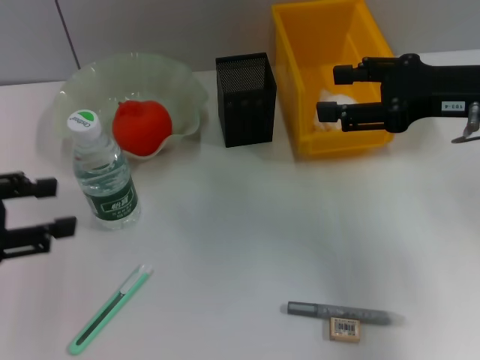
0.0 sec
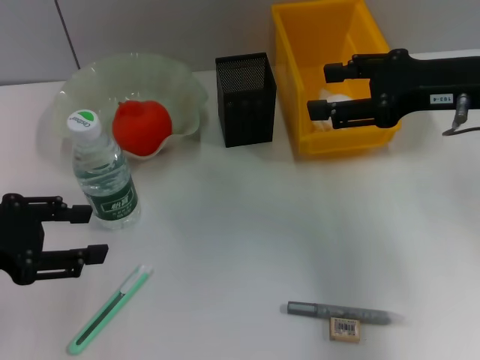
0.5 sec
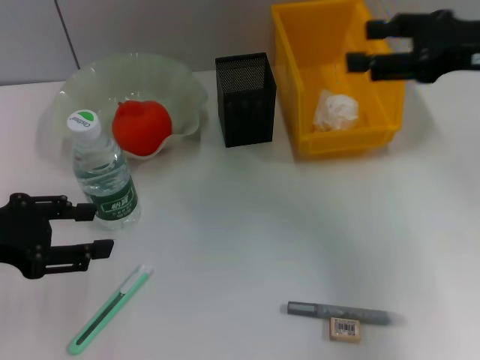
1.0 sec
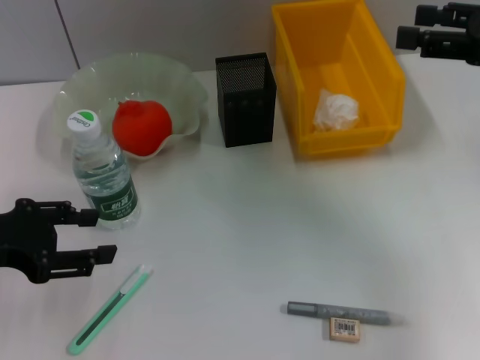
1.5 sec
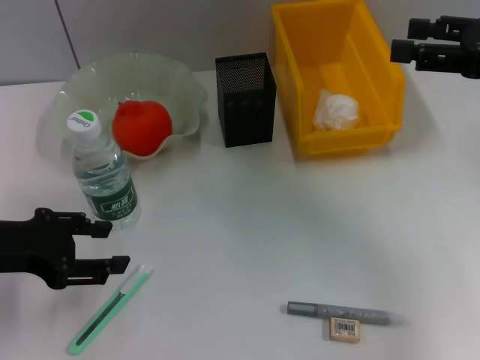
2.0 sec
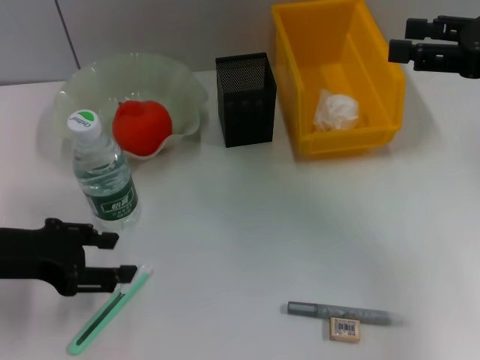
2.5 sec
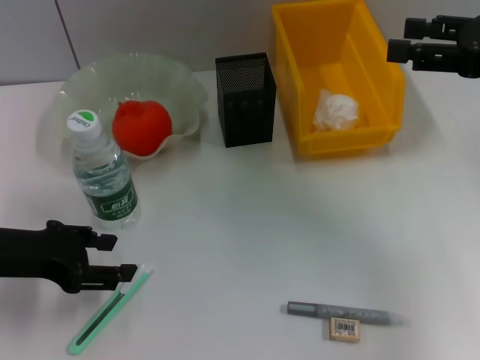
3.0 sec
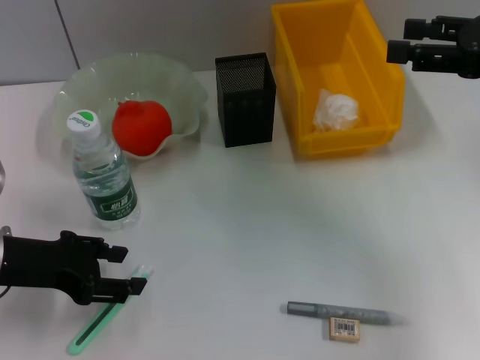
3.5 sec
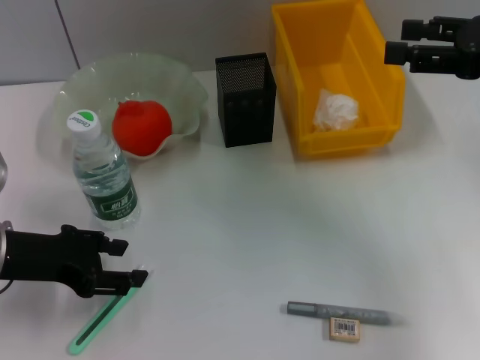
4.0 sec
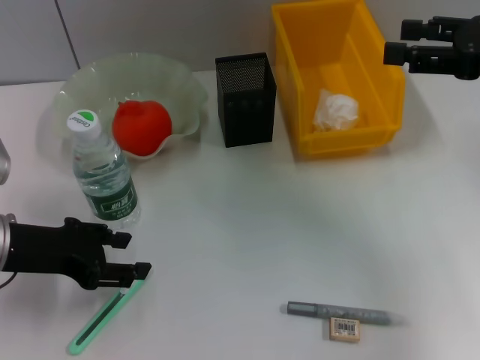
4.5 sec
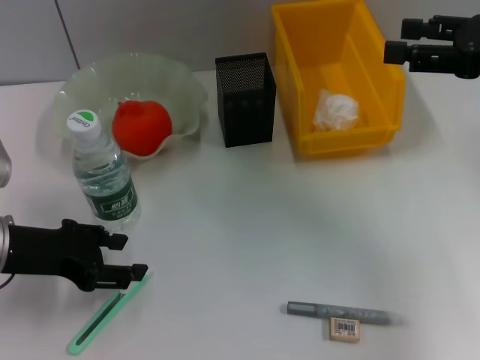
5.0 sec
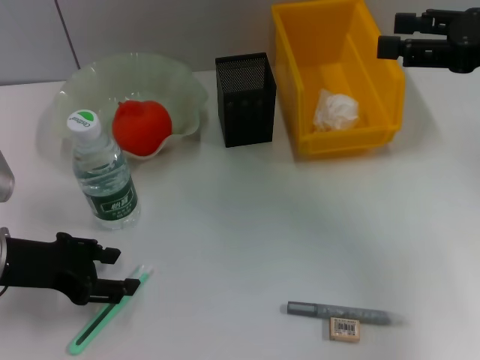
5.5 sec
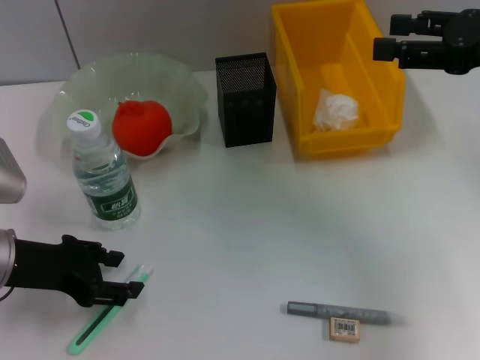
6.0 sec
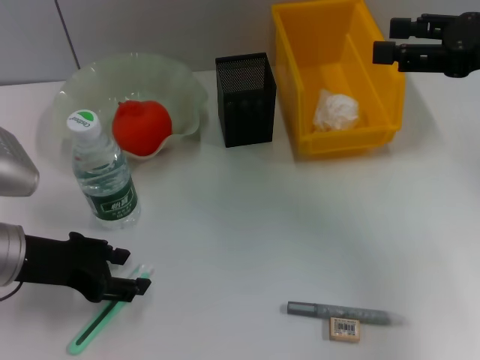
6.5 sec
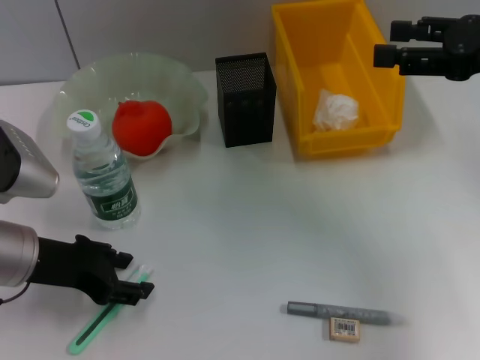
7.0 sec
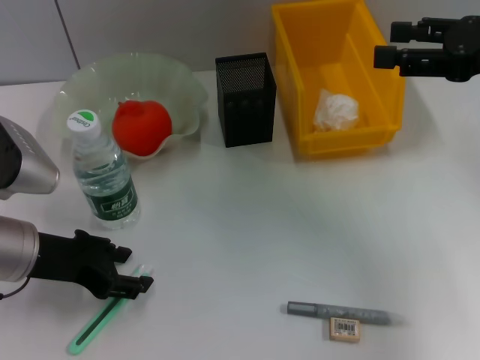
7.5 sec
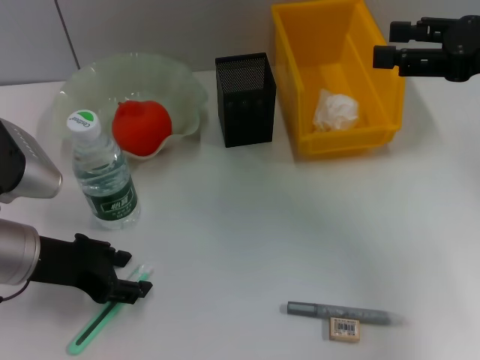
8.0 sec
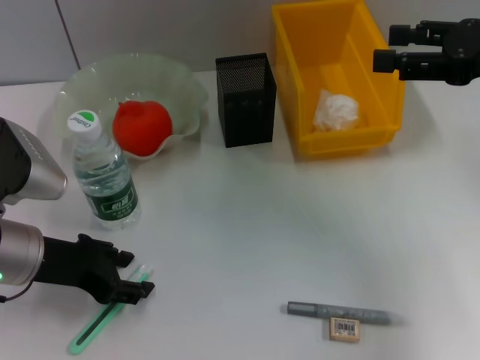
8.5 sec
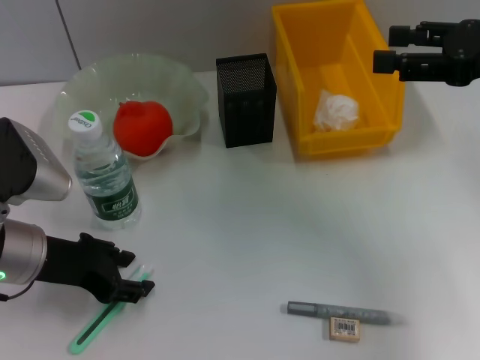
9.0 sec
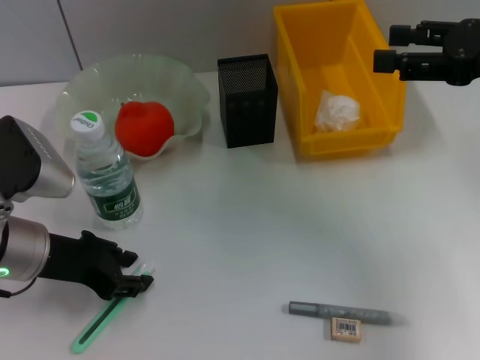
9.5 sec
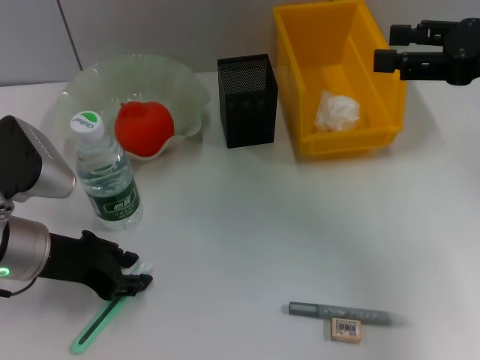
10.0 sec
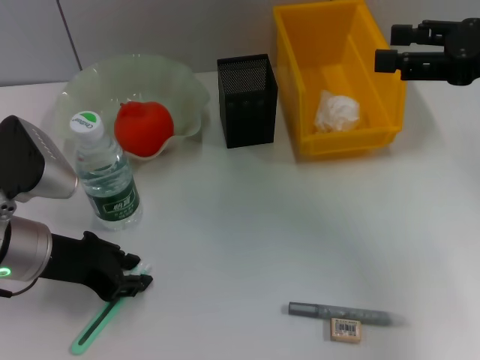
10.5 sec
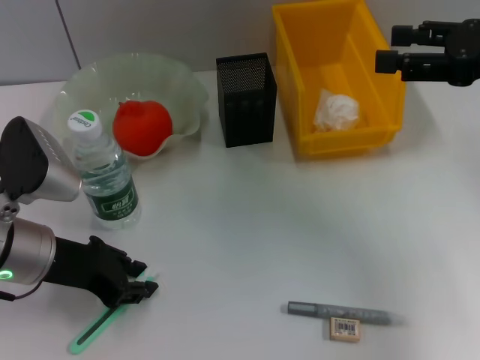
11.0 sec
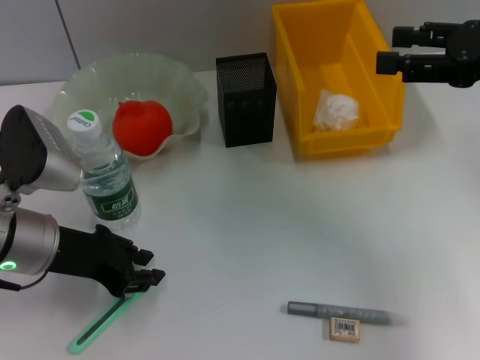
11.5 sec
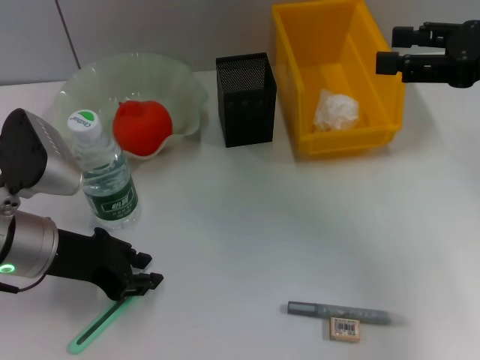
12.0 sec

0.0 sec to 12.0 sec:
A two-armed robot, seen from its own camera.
0.0 sec to 2.0 sec: The right gripper moves to the right, some 5 cm. Meanwhile the left gripper moves some 5 cm.
2.0 sec to 4.0 sec: The grippers make only small movements.
4.0 sec to 6.0 sec: The two grippers keep their place.
6.0 sec to 8.0 sec: The grippers move only a little.
8.0 sec to 10.0 sec: Both grippers stay put.
10.0 sec to 12.0 sec: The grippers stay close to where they were, moving slightly.

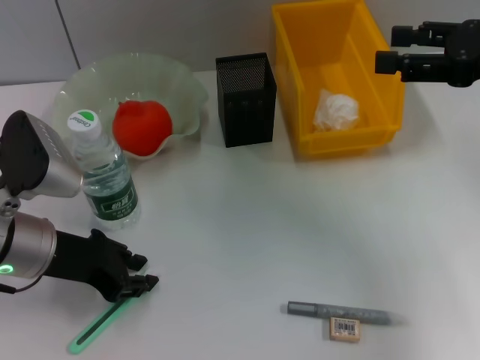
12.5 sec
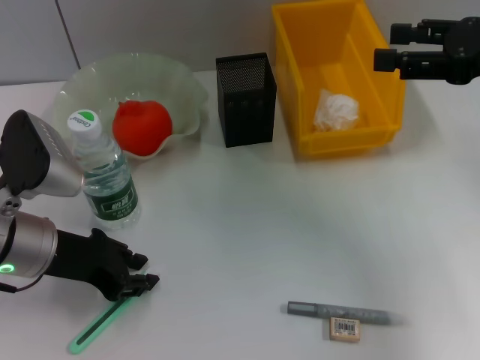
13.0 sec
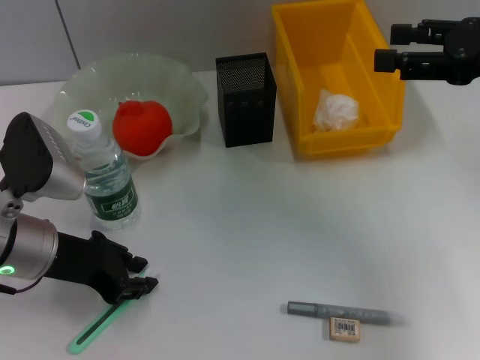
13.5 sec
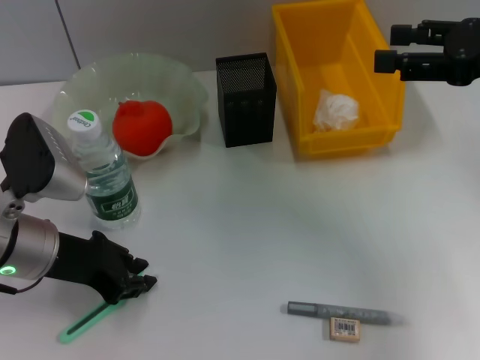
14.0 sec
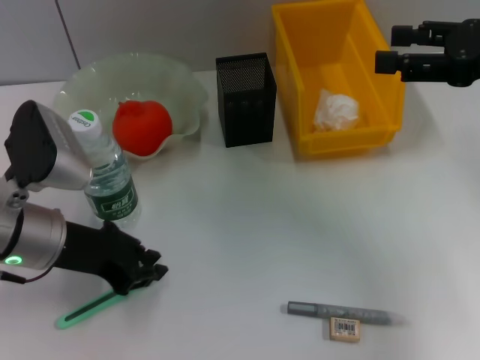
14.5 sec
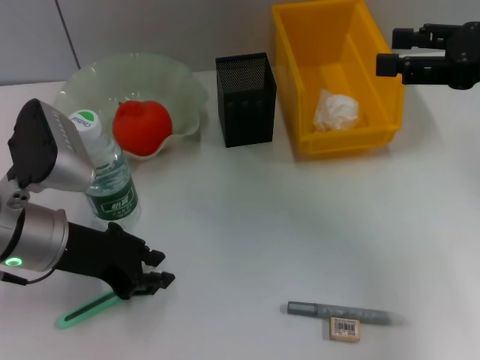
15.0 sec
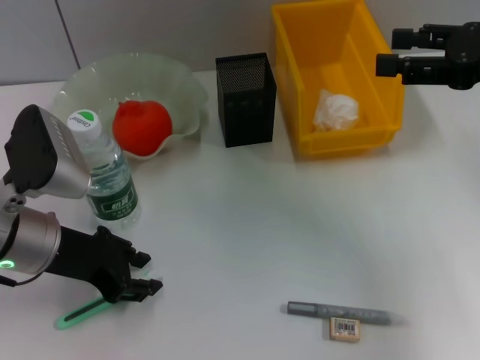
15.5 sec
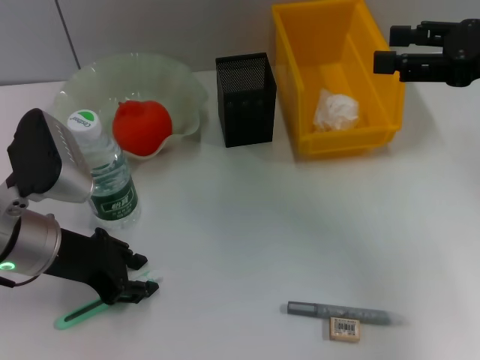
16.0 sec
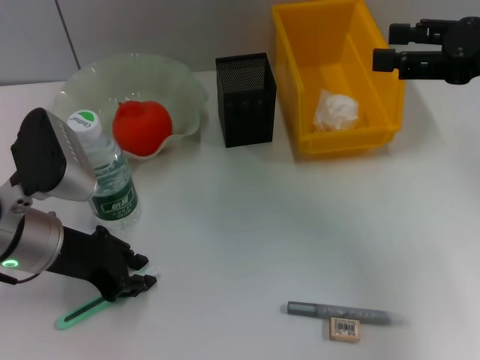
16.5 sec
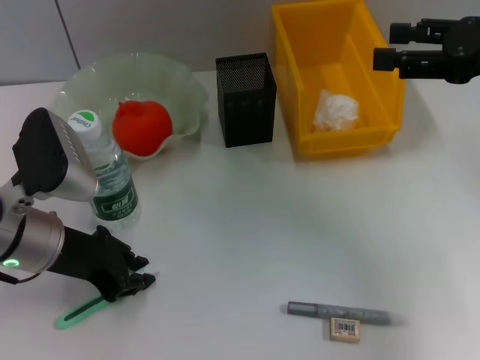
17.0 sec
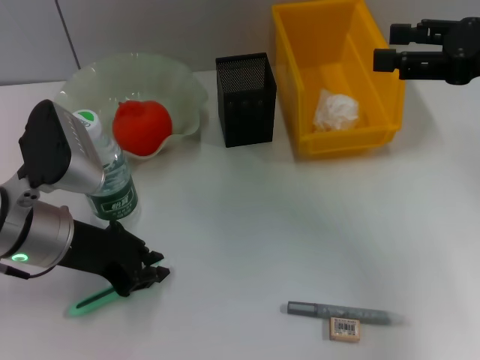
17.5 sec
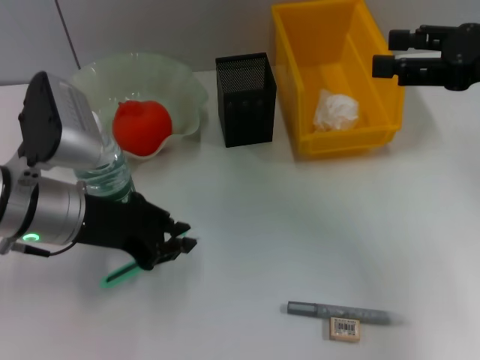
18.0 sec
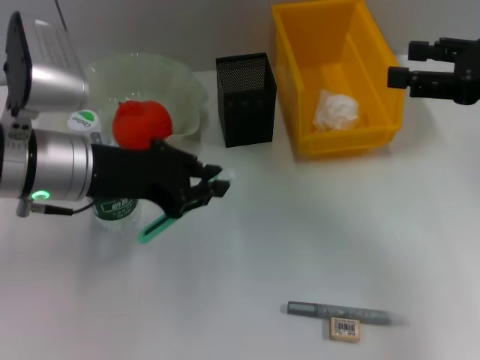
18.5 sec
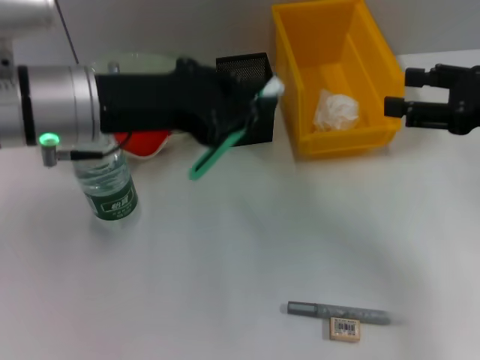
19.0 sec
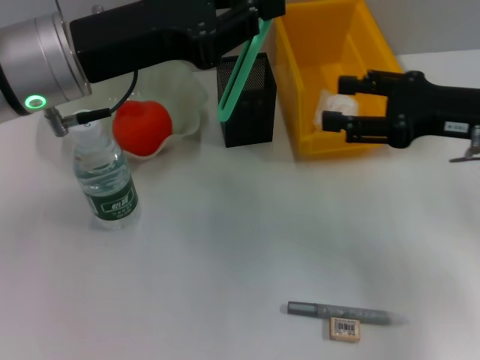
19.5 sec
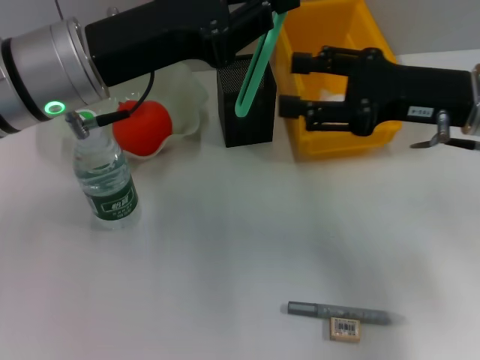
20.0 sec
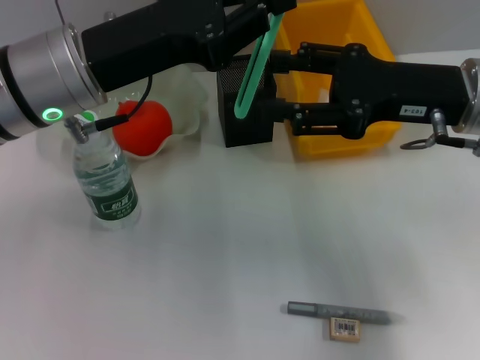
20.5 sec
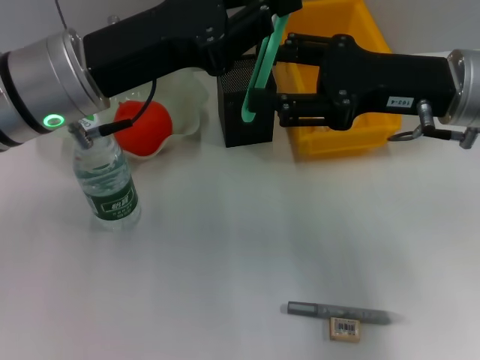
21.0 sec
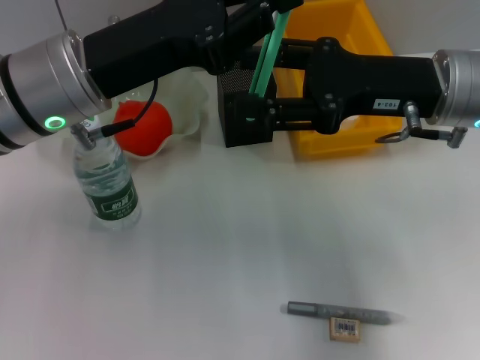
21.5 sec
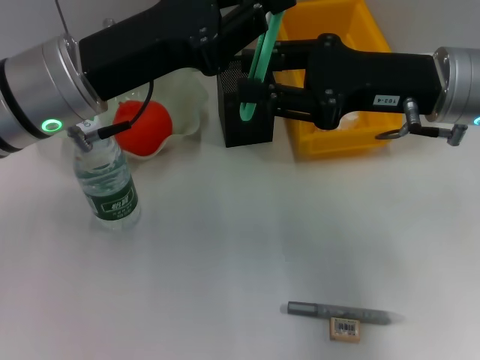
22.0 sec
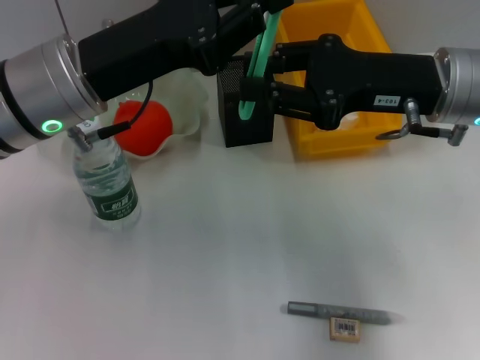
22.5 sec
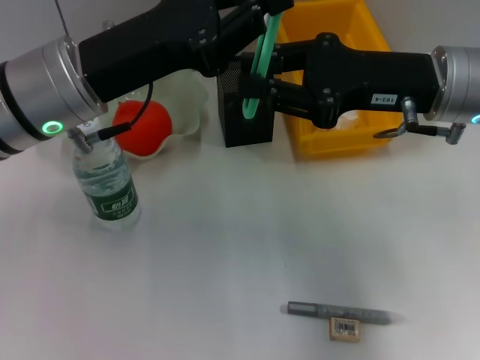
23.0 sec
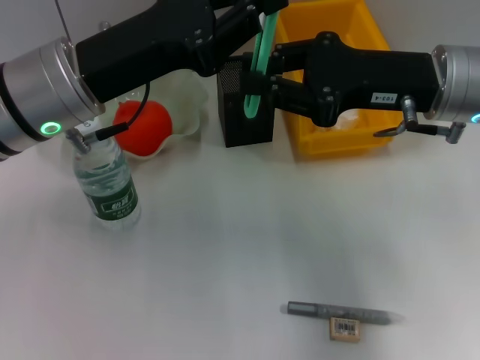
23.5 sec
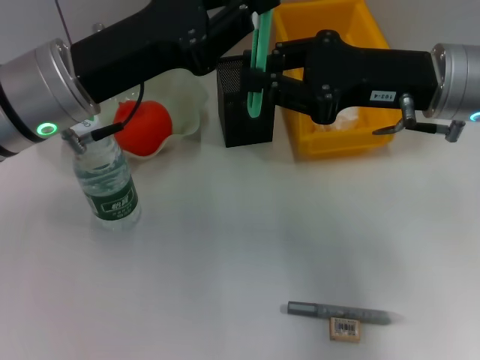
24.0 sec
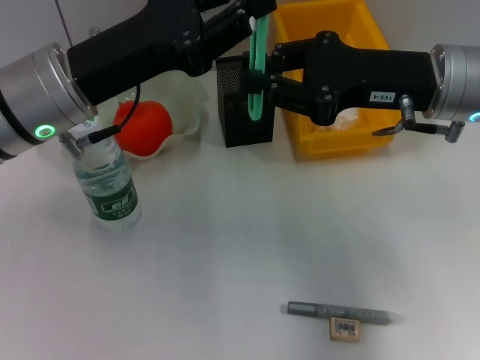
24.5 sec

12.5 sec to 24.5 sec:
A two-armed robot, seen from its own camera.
Step, 12.5 sec to 17.0 sec: Grab the blue utility knife with the left hand.
12.5 sec to 14.5 sec: Both grippers stay about where they are.
14.5 sec to 16.5 sec: The grippers move only a little.
16.5 sec to 18.5 sec: The left gripper is displaced upward by approximately 5 cm.
18.5 sec to 20.5 sec: The left gripper ends up some 5 cm from where it was, while the right gripper shifts some 10 cm to the left.
20.5 sec to 22.5 sec: The right gripper closes its fingers.
22.5 sec to 24.5 sec: Both grippers stay about where they are.

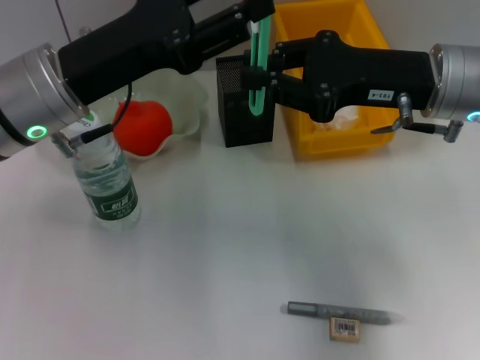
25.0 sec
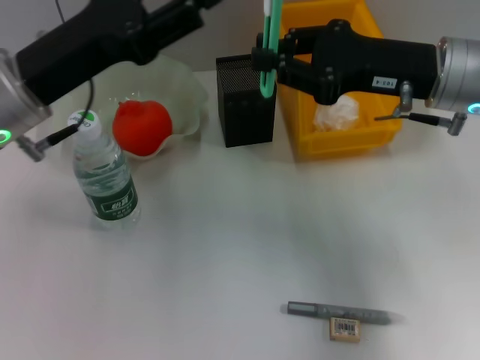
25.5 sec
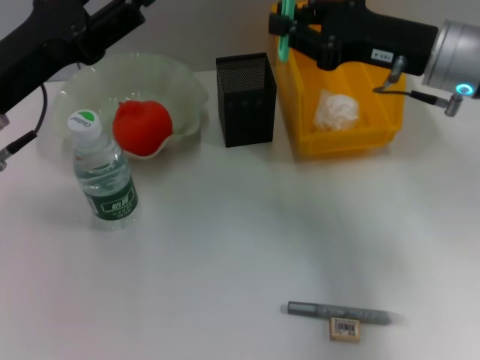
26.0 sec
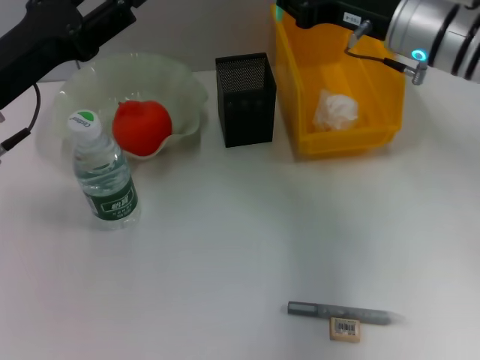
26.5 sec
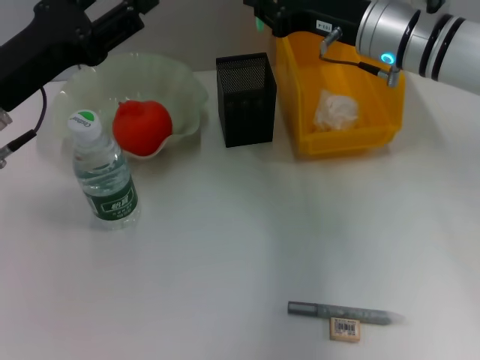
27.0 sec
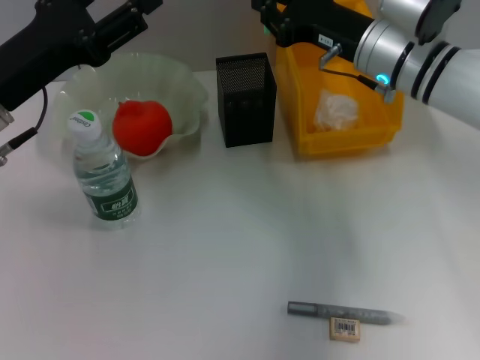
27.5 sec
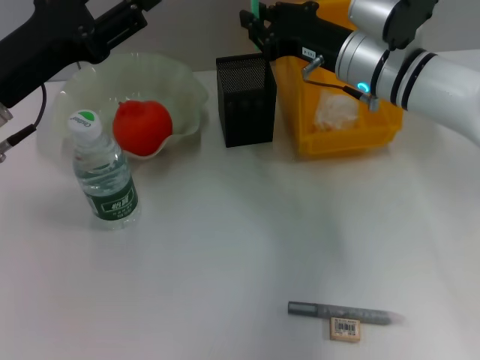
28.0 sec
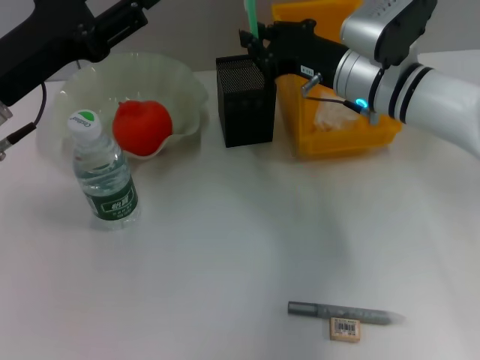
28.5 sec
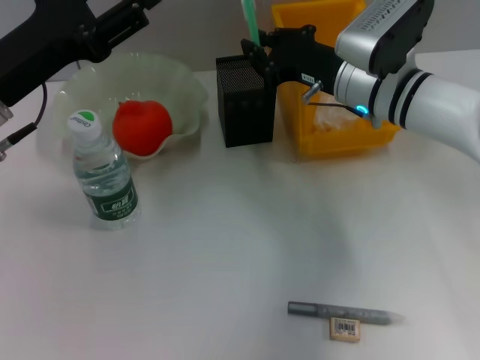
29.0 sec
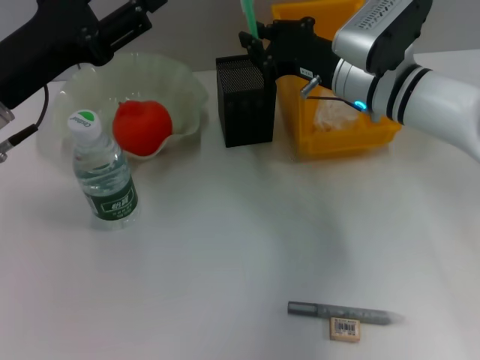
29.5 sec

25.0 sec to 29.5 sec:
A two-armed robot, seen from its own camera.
25.0 sec to 27.0 sec: The right gripper moves forward, some 10 cm, while the left gripper moves to the left, roughly 5 cm.
27.0 sec to 29.5 sec: The right gripper changes place by some 5 cm.
